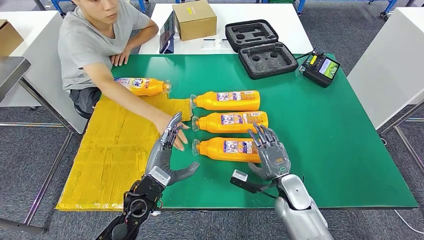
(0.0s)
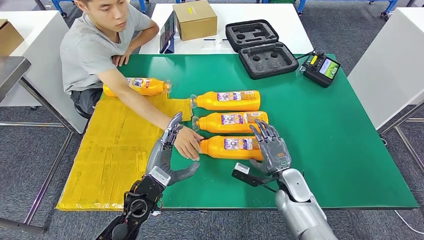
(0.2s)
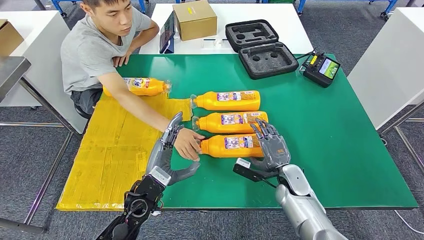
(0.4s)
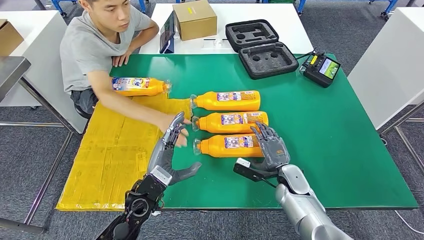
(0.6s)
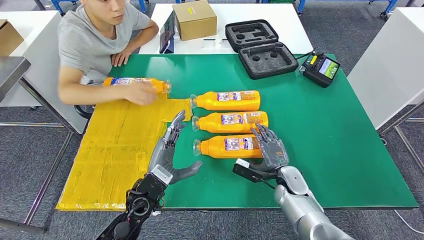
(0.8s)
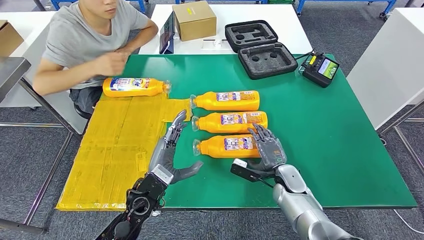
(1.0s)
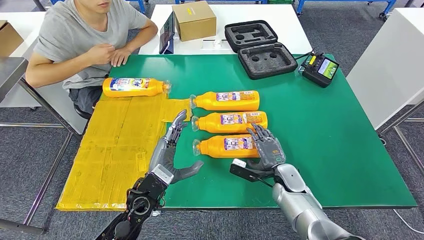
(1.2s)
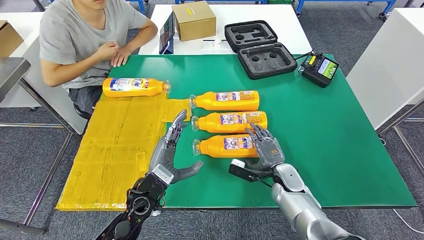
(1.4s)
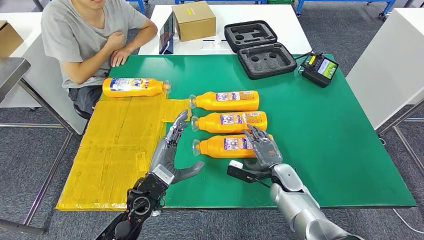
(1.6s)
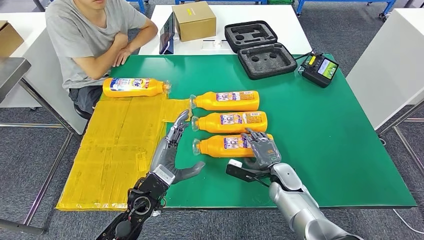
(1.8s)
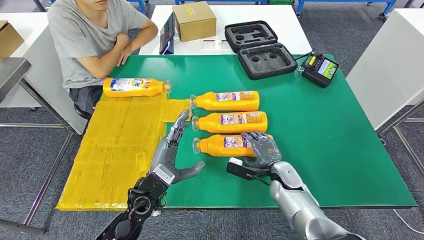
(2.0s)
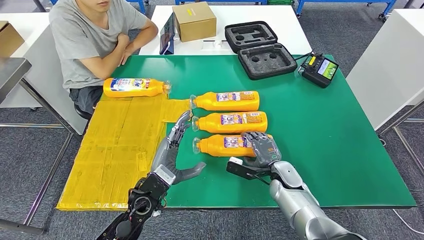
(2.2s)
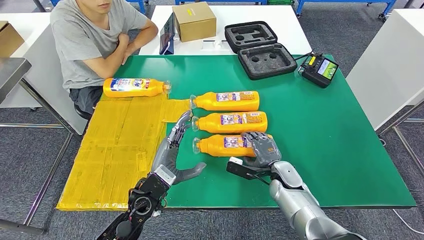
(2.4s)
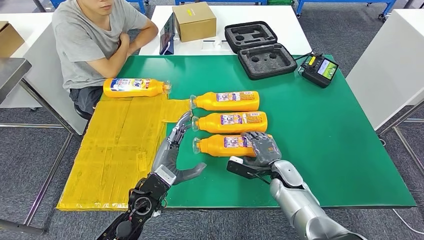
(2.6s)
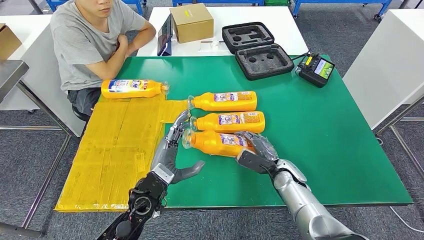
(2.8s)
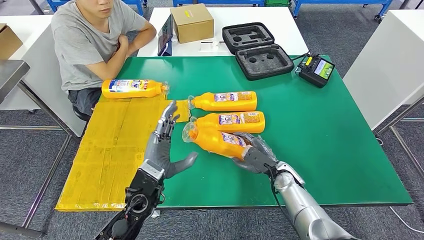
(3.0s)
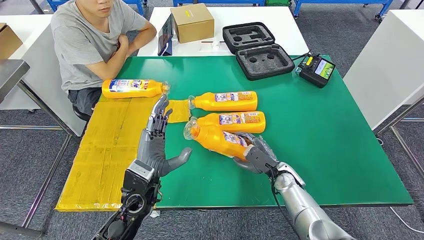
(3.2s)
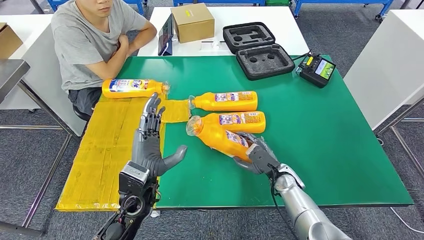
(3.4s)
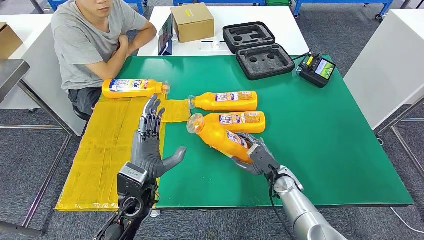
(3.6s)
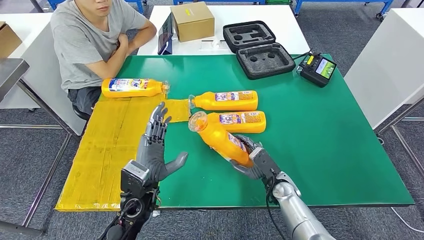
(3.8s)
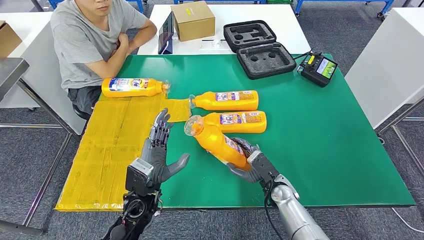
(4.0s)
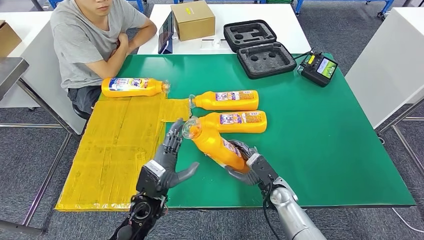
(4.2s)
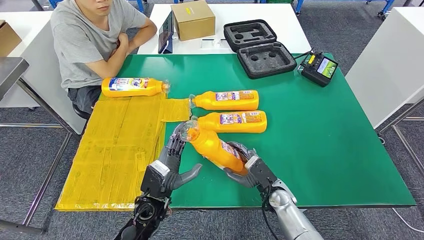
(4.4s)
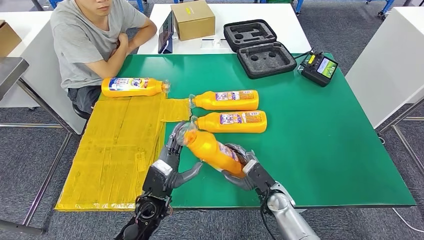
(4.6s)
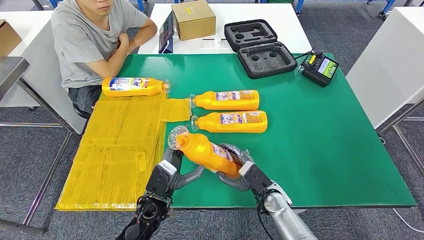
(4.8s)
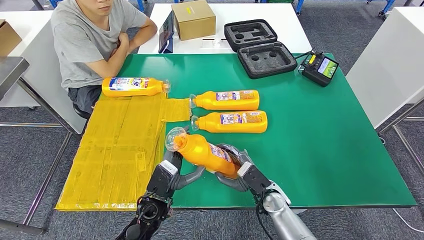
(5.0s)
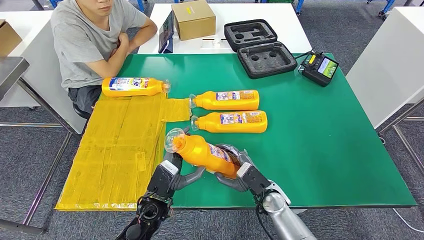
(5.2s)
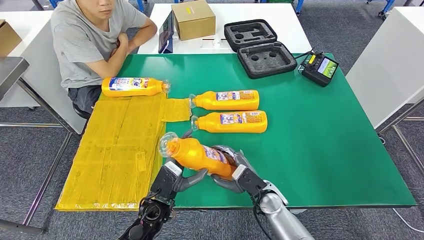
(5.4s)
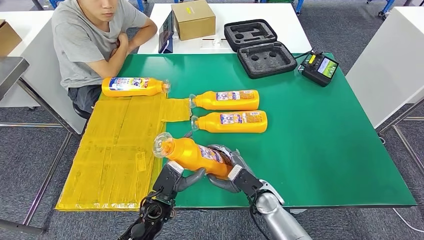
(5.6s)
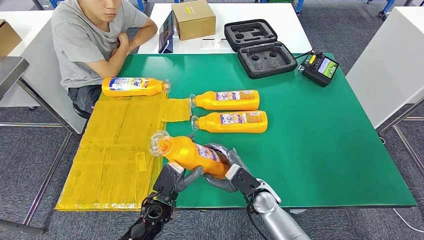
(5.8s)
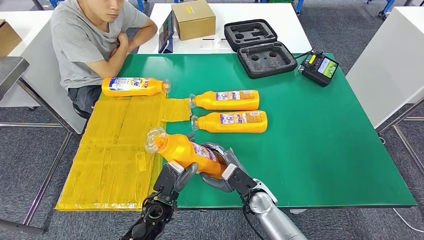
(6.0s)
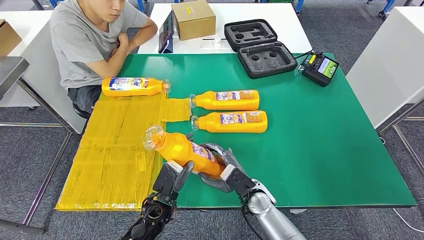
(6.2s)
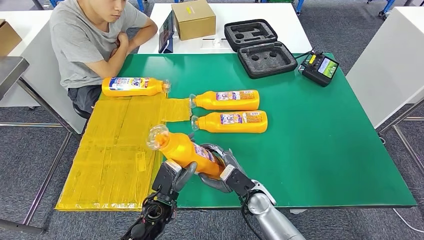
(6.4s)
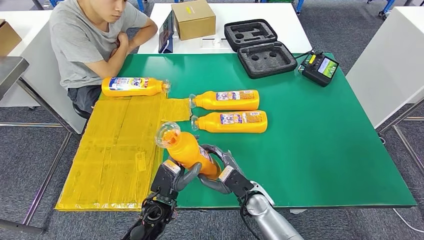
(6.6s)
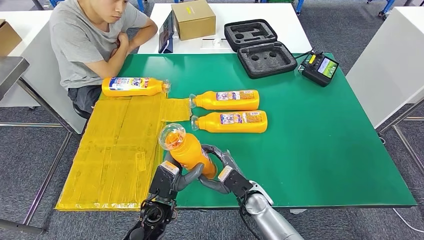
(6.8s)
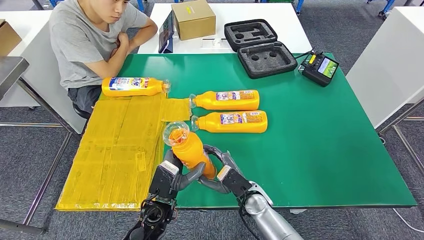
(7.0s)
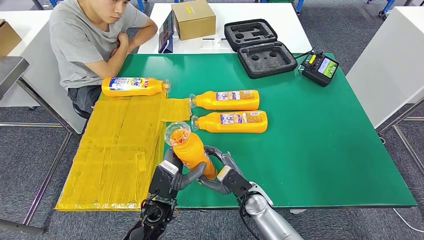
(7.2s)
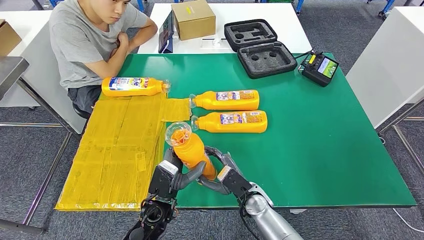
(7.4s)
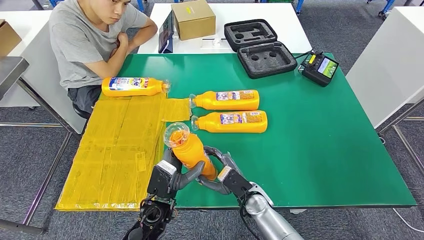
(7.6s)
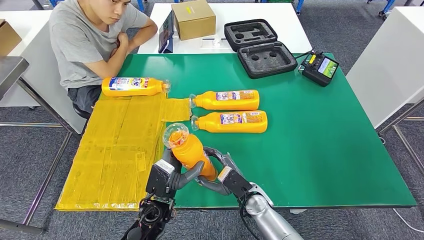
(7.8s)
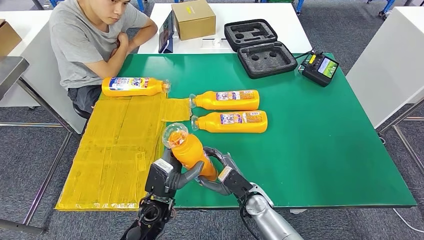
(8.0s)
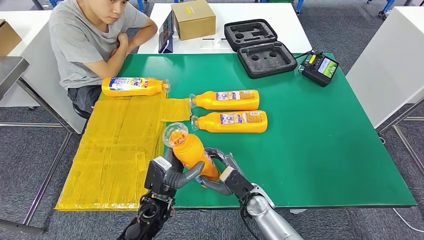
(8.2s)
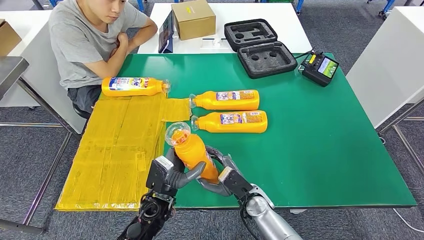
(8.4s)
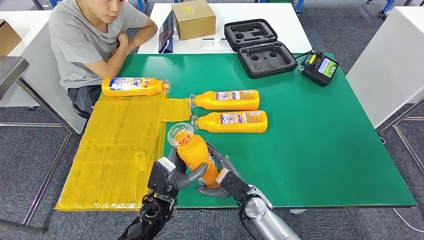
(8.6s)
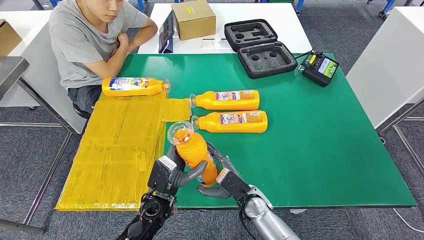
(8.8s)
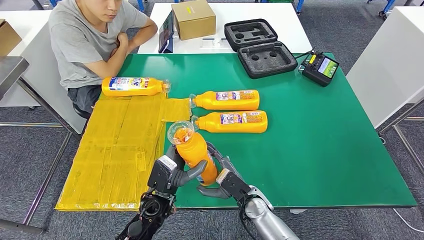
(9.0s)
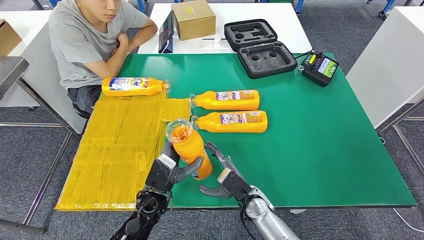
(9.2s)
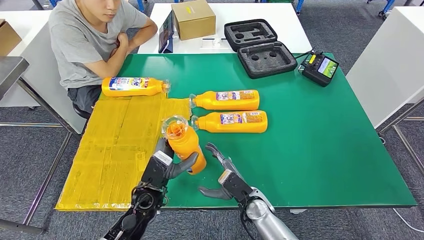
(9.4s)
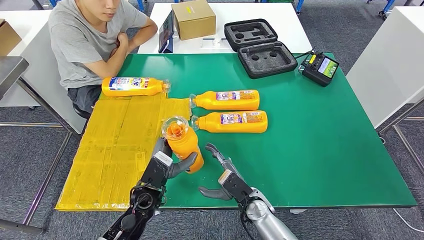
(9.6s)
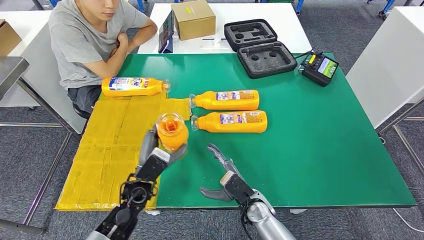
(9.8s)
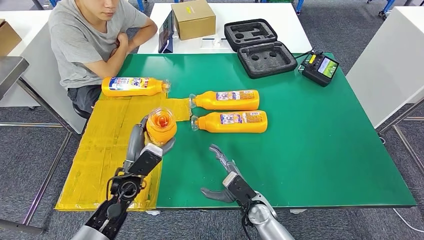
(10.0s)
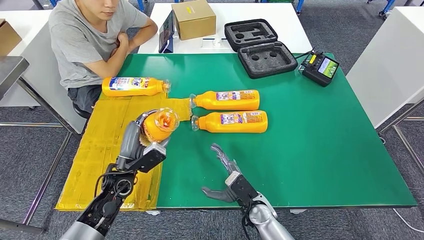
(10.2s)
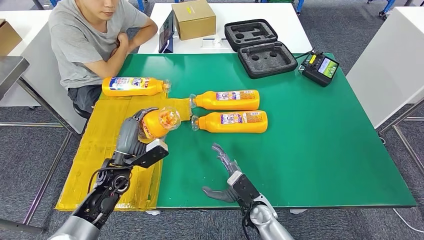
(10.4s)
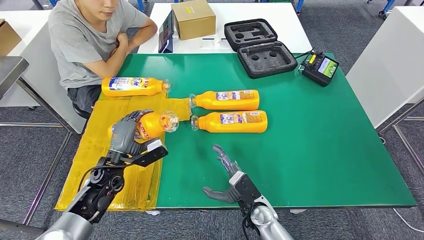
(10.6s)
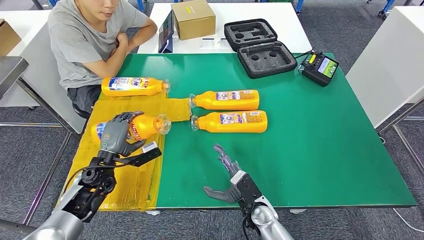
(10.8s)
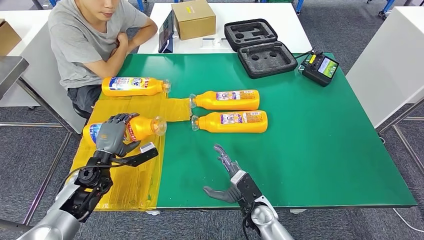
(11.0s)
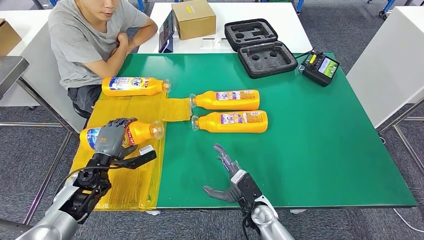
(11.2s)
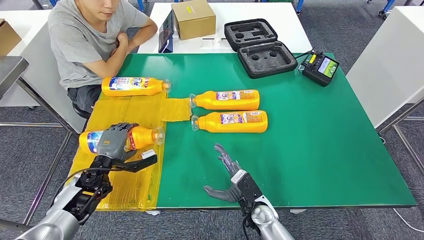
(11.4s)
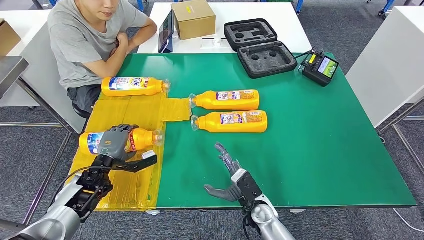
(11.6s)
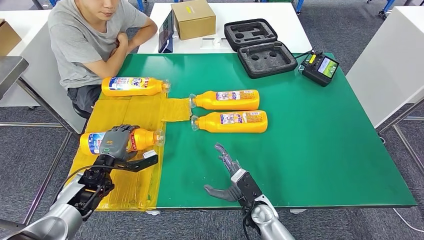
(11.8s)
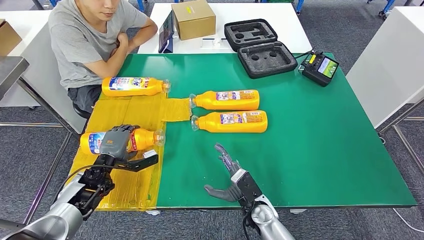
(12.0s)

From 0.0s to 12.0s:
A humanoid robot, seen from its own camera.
Step, from 0.0s to 5.0s: Pick up the fast-moving consumer goods bottle from the table.
Step, from 5.2s to 11.4s: Flip the fast-moving consumer goods bottle to the front side.
From 0.0s to 1.6s: There are only small adjustments of the hands.
From 4.4s to 6.0s: The right hand shifts approximately 5 cm to the left.
From 6.0s to 9.0s: The hands move only a little.
From 9.0s to 10.4s: The left hand shifts about 15 cm to the left and forward.
From 10.4s to 12.0s: The left hand moves to the left, approximately 5 cm.

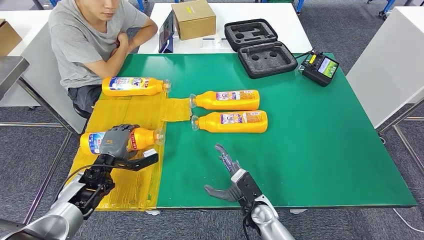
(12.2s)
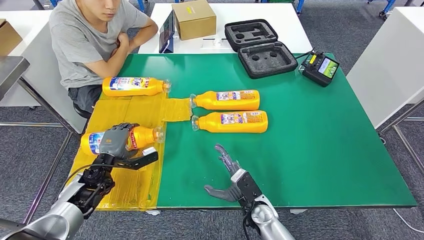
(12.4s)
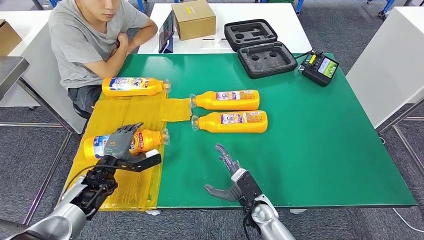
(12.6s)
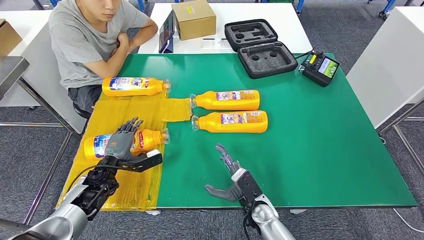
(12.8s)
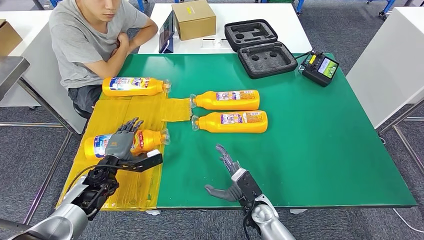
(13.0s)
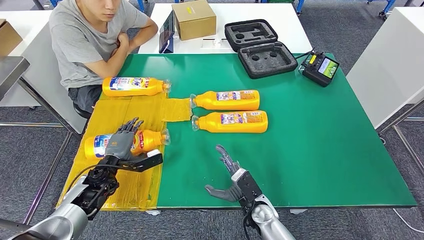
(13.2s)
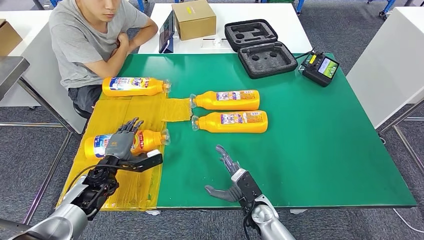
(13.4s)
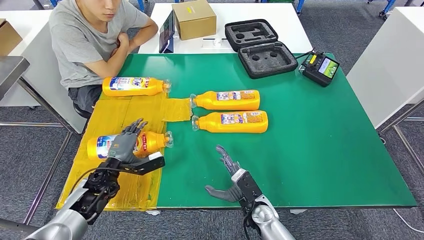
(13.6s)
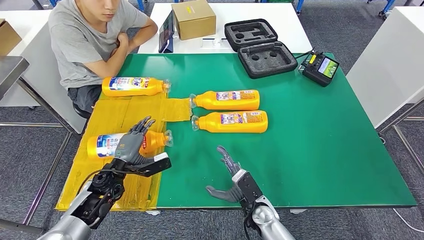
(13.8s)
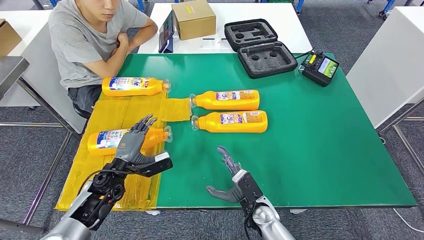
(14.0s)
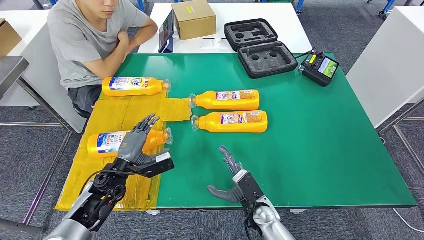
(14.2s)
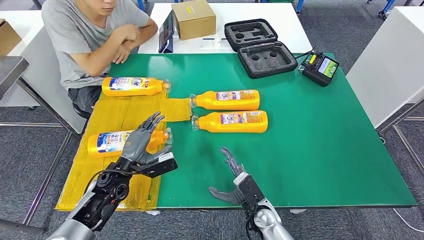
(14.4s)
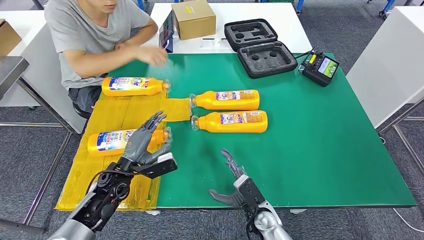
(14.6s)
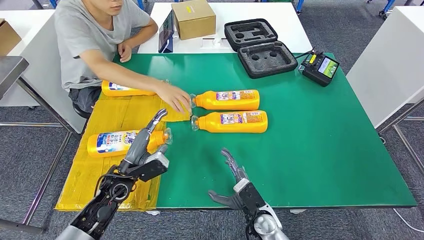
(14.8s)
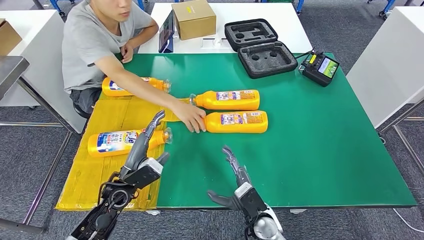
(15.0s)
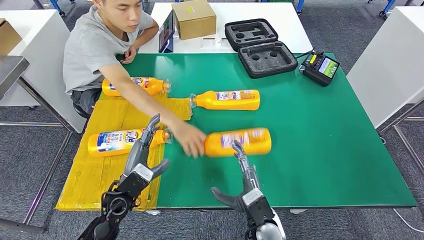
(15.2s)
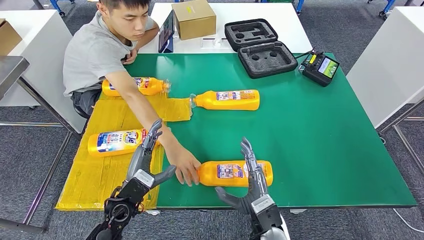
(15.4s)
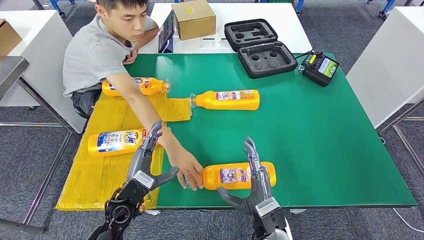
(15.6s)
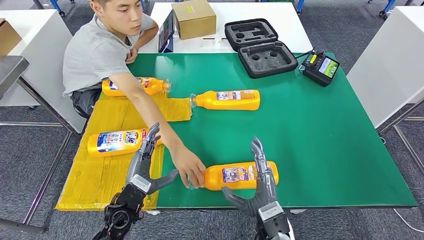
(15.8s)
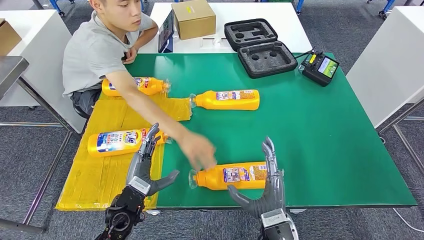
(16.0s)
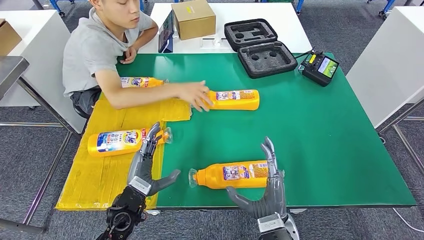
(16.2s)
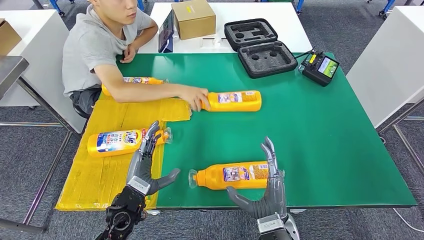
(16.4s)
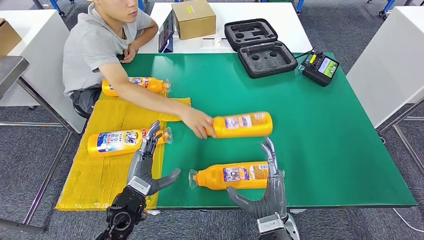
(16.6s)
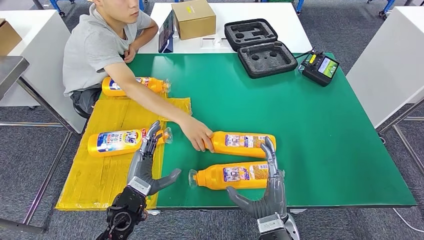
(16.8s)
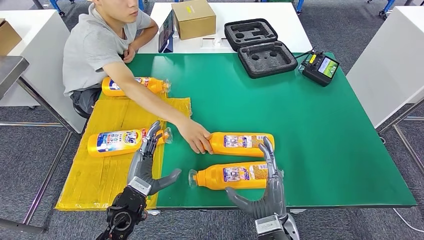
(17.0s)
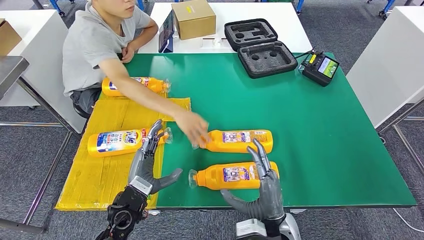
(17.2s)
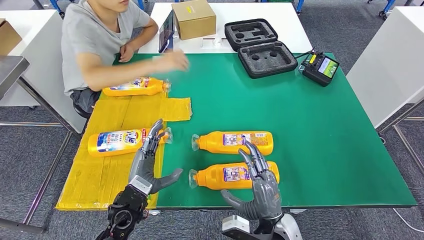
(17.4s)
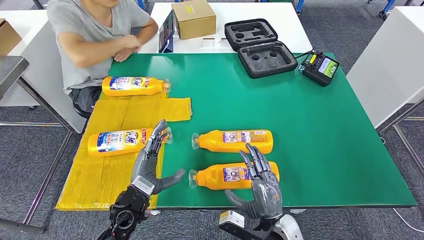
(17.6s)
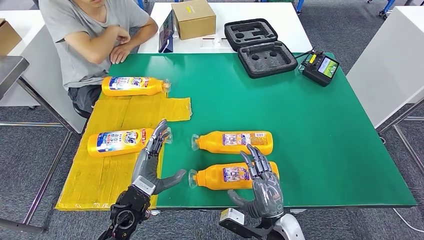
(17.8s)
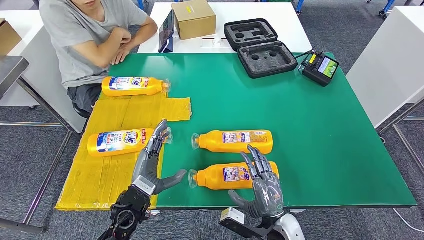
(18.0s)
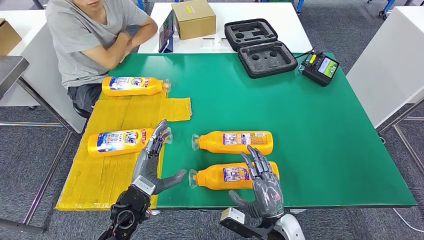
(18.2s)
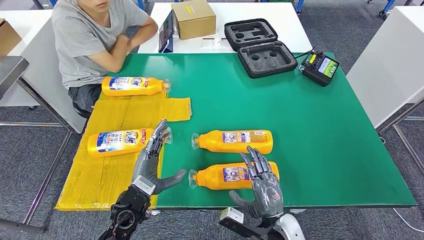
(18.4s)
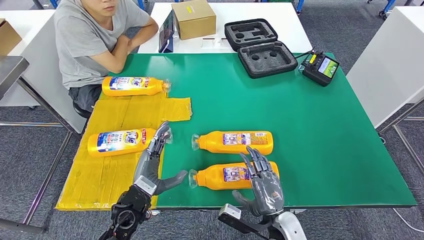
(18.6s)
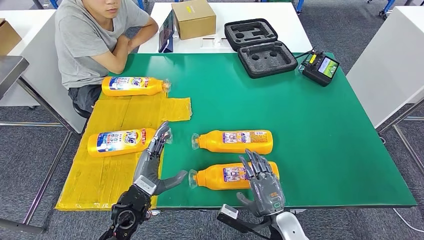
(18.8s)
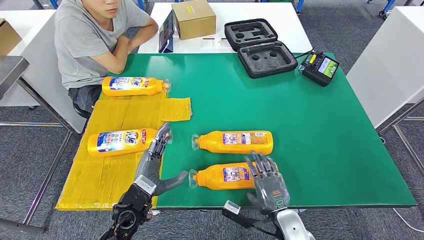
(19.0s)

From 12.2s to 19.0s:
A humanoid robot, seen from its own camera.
From 12.2s to 13.6s: The hands move only a little.
From 13.6s to 15.0s: The left hand heads to the right, covering roughly 5 cm.
From 15.0s to 16.2s: The left hand heads backward, covering some 5 cm; the right hand goes some 5 cm upward.
